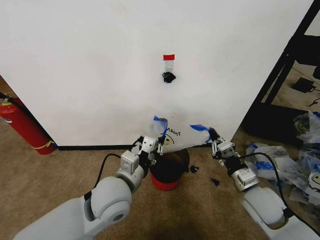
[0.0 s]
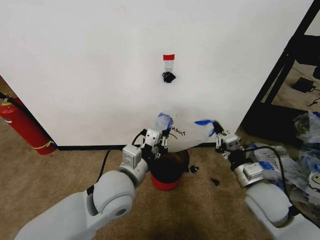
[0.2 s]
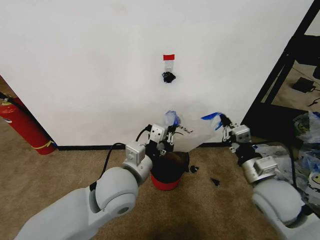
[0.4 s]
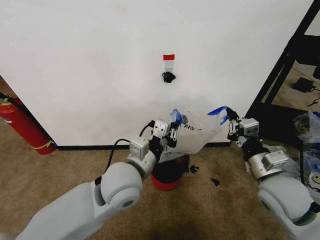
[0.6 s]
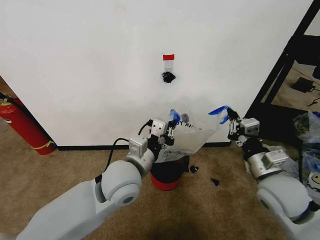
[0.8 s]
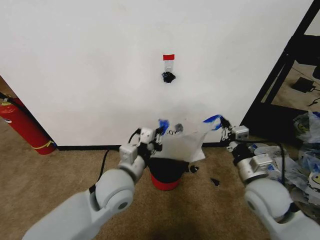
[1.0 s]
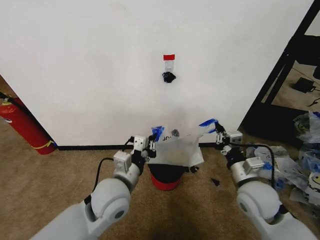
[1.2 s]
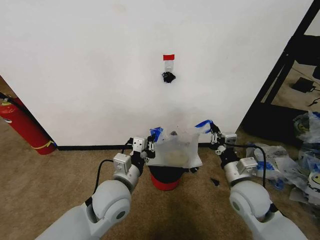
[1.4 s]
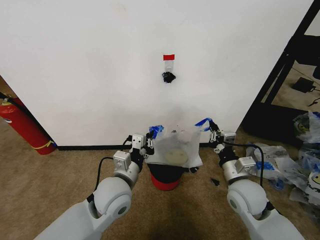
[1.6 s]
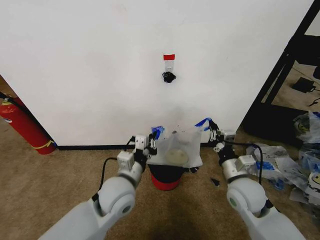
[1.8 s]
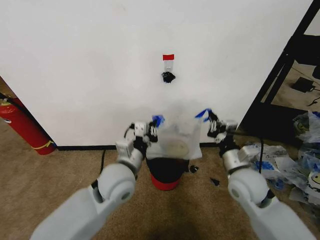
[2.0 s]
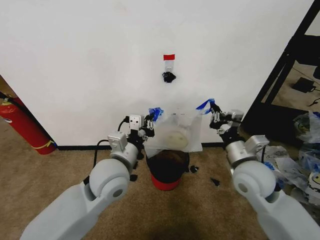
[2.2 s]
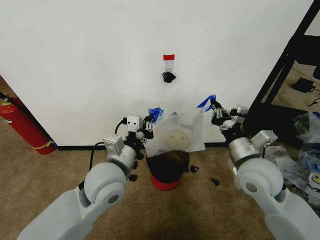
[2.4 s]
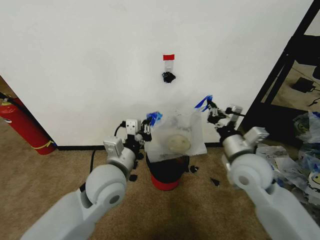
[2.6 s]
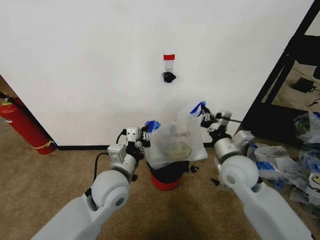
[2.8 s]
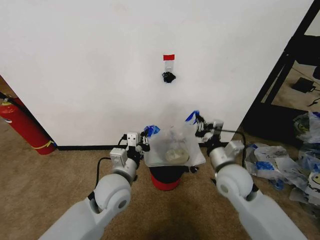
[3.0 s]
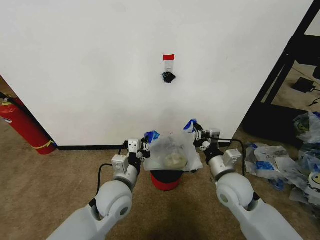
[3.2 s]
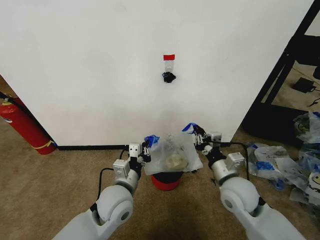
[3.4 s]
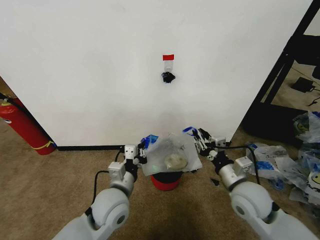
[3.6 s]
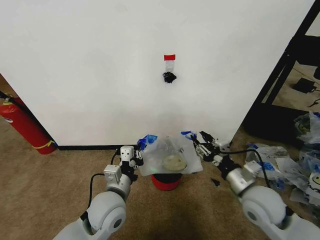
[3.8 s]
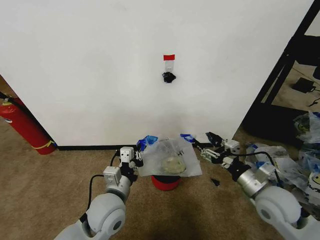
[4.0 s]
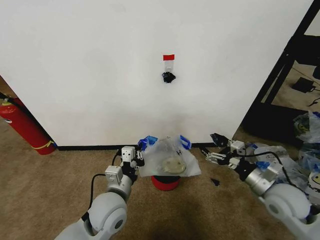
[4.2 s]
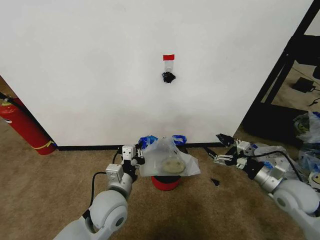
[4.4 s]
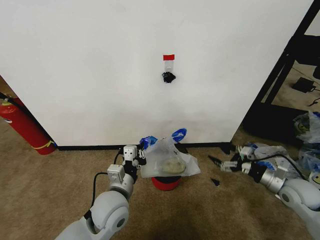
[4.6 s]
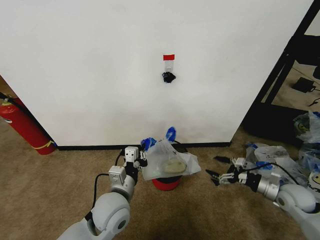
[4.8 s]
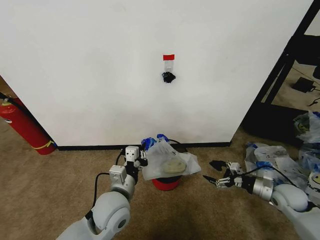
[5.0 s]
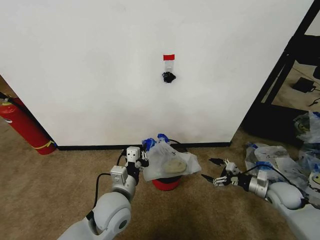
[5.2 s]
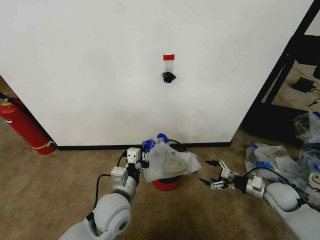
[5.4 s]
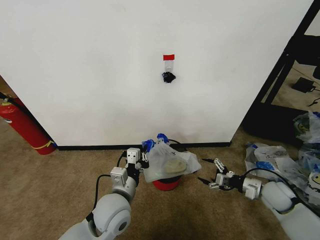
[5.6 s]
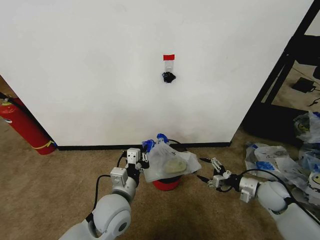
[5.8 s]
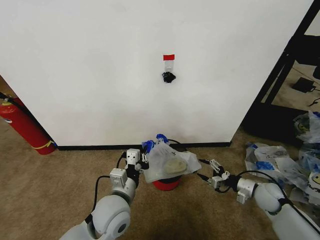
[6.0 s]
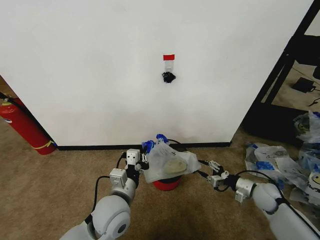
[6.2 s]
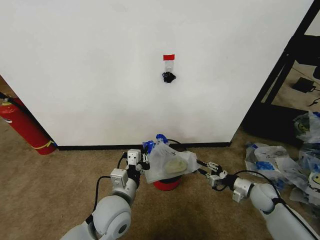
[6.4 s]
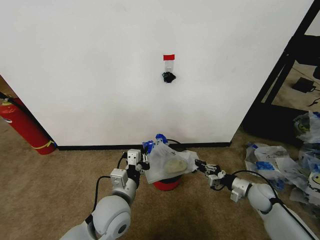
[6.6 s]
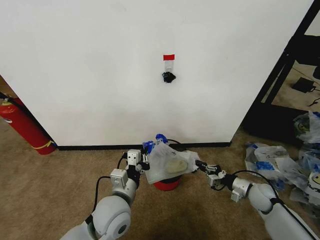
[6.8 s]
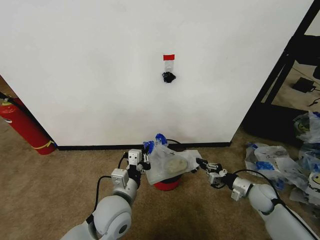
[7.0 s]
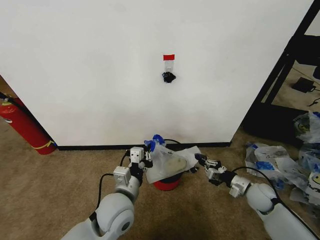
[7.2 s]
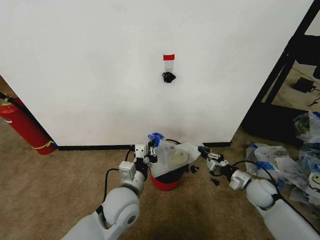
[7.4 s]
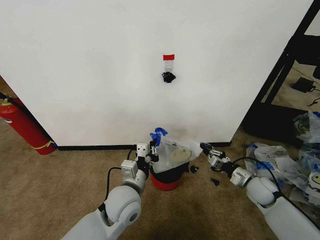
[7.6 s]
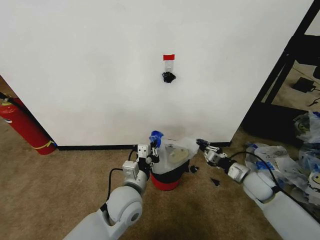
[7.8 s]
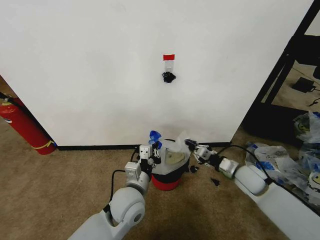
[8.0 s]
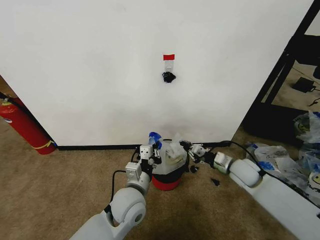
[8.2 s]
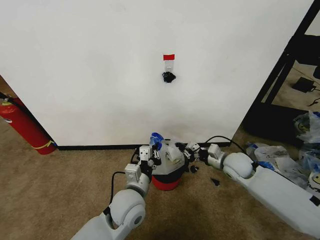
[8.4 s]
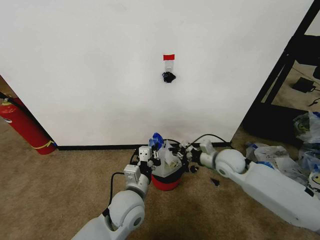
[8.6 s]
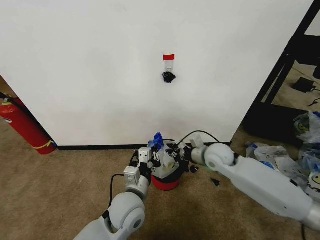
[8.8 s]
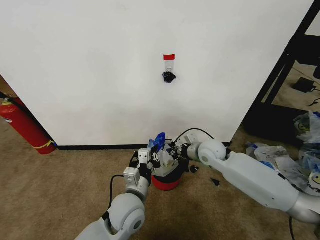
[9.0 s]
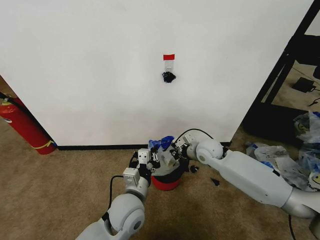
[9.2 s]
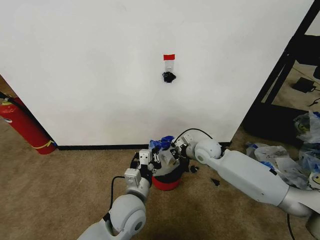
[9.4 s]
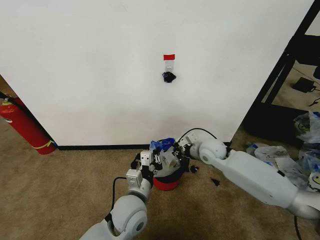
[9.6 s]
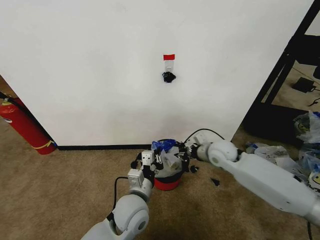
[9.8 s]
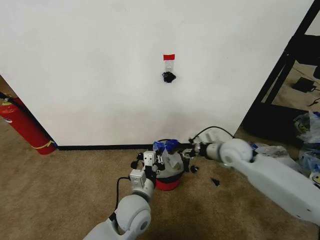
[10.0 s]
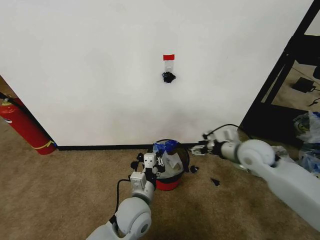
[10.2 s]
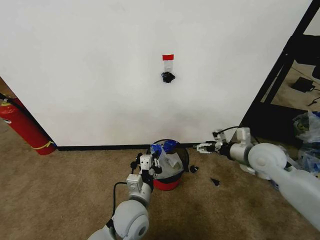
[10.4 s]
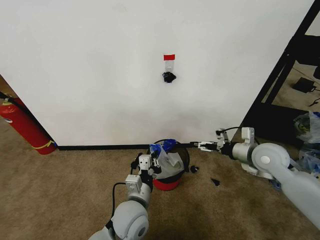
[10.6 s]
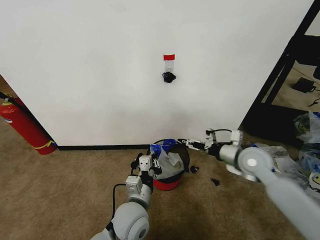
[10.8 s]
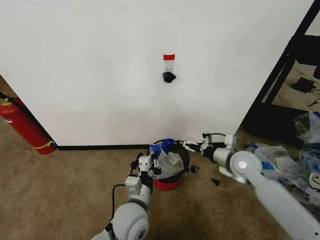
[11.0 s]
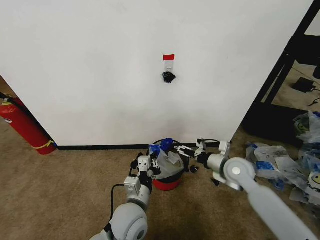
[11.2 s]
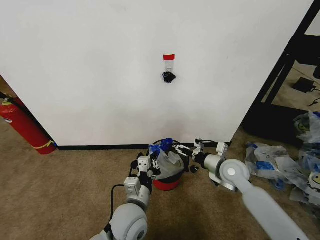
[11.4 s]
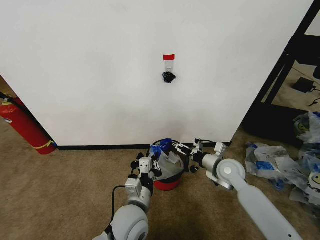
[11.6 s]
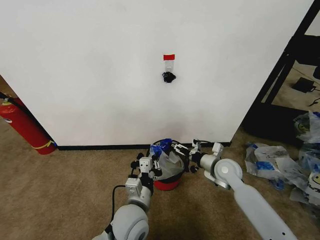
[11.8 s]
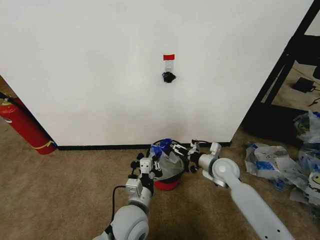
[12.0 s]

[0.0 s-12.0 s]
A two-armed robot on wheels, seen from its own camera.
Task of the whole recording: Pick up the garbage bag from the wall and place it over the trash bin.
0.0 to 1.6 s: The right gripper moves approximately 10 cm upward and comes back.
1.6 to 3.0 s: The right gripper goes upward and returns, approximately 10 cm each way.
3.0 to 4.4 s: The right gripper goes approximately 20 cm to the right, and opens its fingers.
4.4 to 6.0 s: The right gripper heads downward, covering approximately 10 cm.
6.0 to 7.6 s: The right gripper closes its fingers.
7.6 to 9.0 s: The right gripper shifts about 25 cm to the left, upward and forward.
9.0 to 10.4 s: The right gripper shifts some 15 cm to the right, backward and upward, and opens.
10.4 to 12.0 s: The right gripper is displaced downward and to the left by about 15 cm.

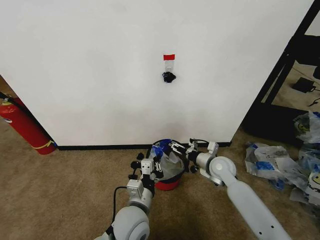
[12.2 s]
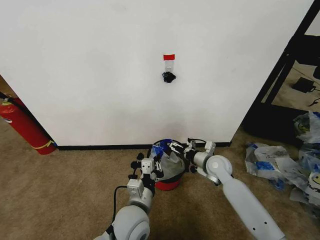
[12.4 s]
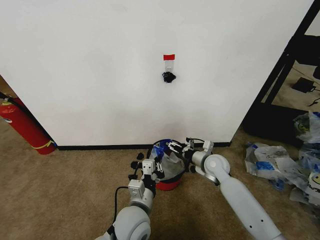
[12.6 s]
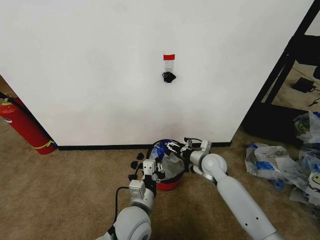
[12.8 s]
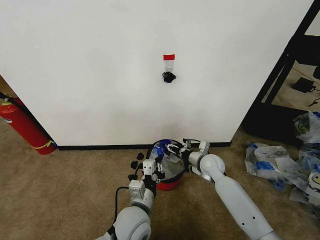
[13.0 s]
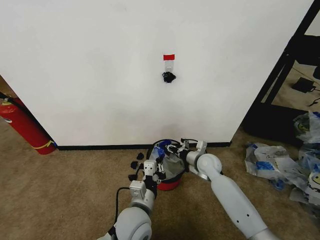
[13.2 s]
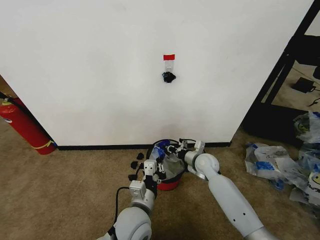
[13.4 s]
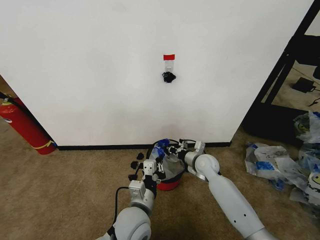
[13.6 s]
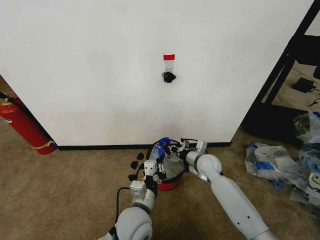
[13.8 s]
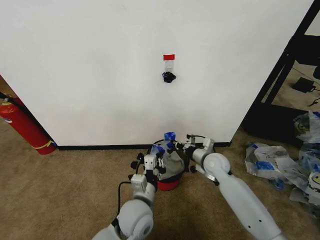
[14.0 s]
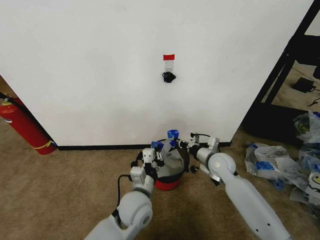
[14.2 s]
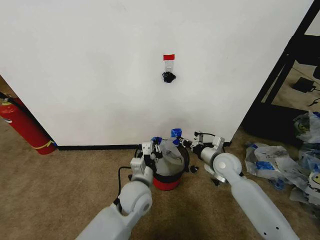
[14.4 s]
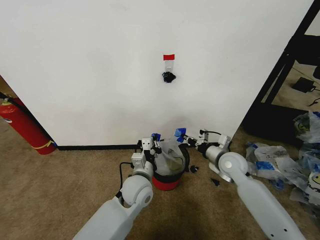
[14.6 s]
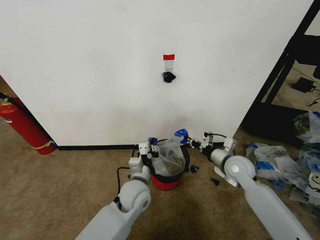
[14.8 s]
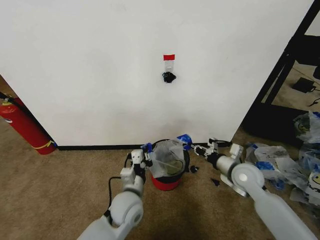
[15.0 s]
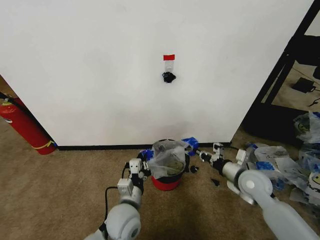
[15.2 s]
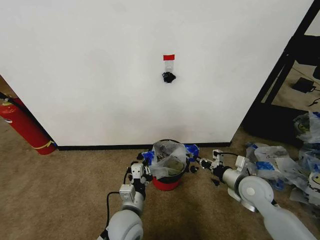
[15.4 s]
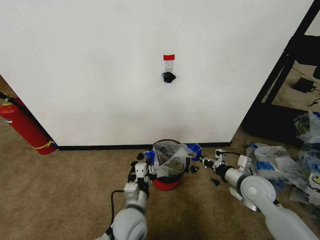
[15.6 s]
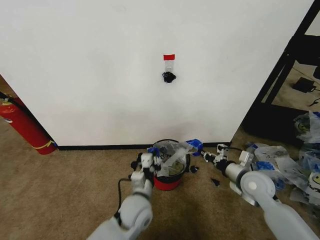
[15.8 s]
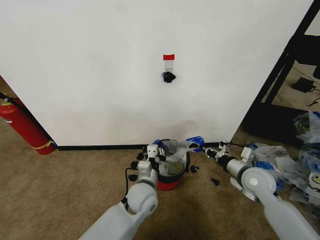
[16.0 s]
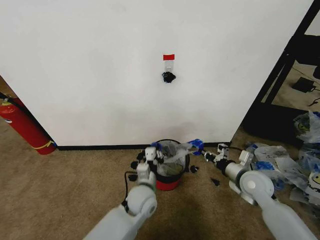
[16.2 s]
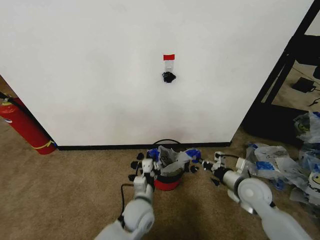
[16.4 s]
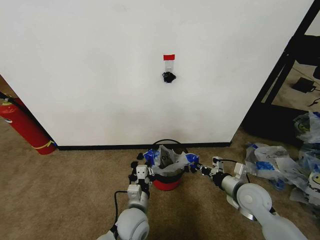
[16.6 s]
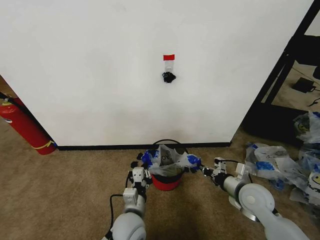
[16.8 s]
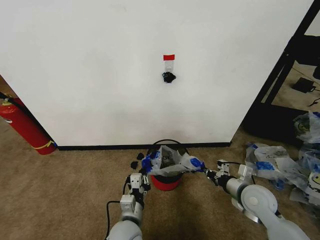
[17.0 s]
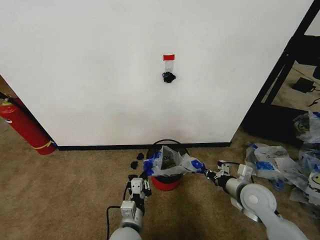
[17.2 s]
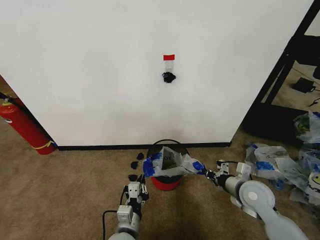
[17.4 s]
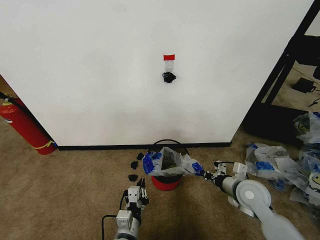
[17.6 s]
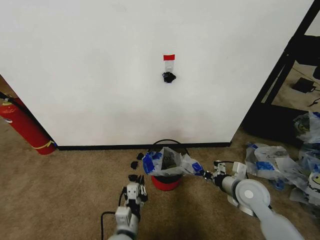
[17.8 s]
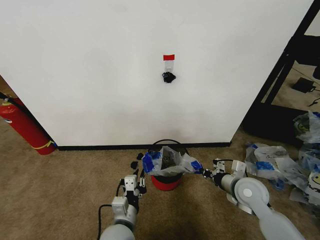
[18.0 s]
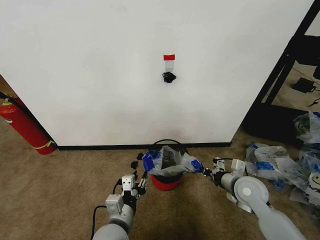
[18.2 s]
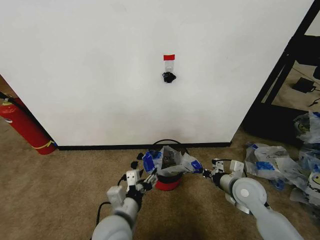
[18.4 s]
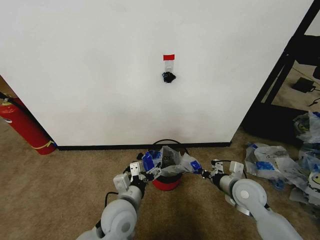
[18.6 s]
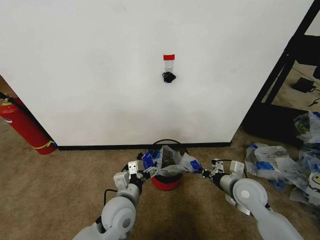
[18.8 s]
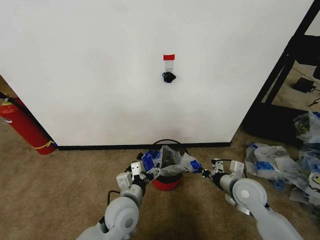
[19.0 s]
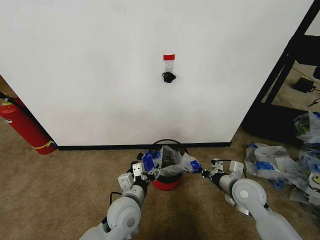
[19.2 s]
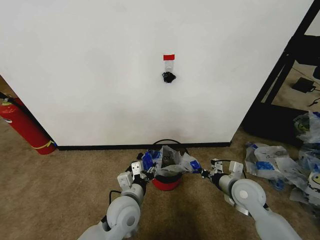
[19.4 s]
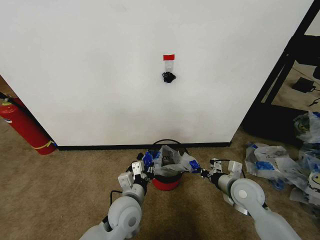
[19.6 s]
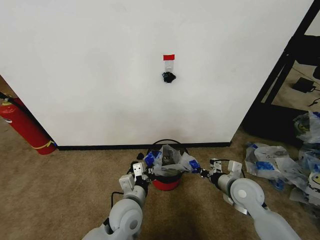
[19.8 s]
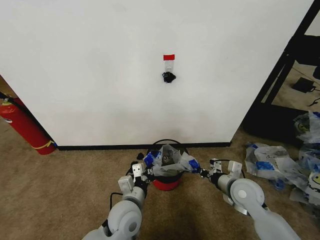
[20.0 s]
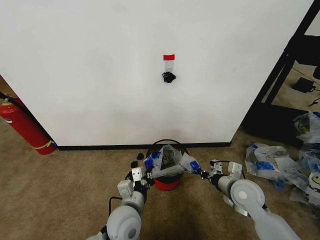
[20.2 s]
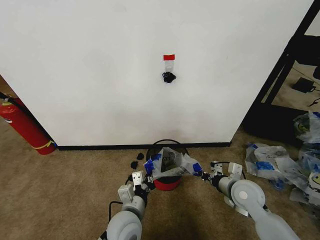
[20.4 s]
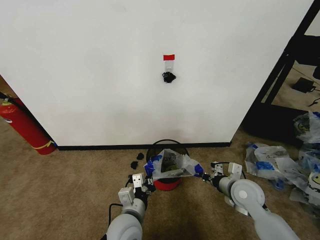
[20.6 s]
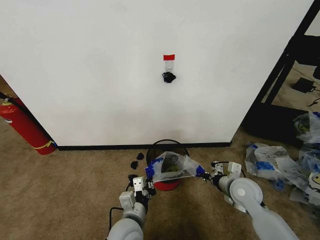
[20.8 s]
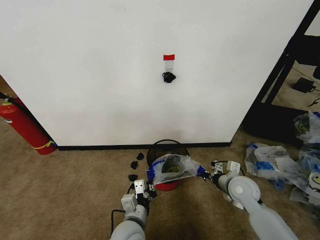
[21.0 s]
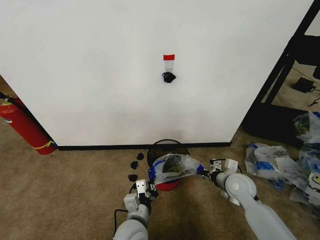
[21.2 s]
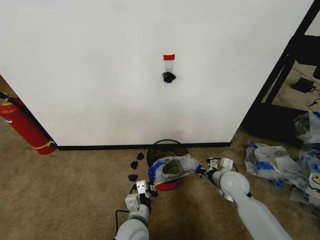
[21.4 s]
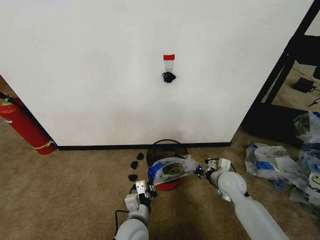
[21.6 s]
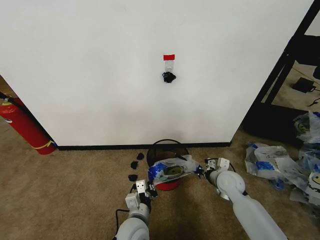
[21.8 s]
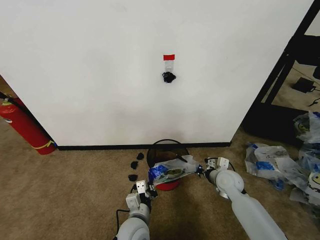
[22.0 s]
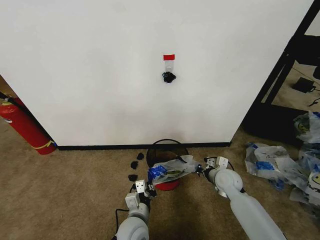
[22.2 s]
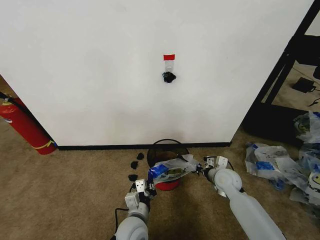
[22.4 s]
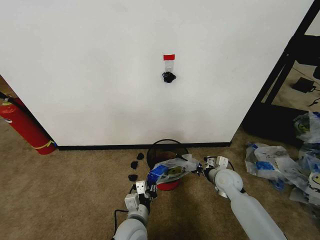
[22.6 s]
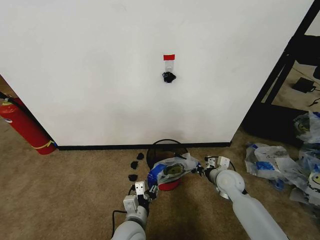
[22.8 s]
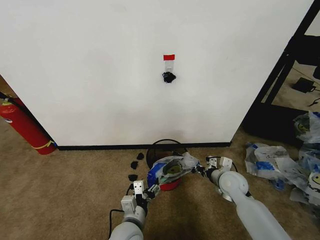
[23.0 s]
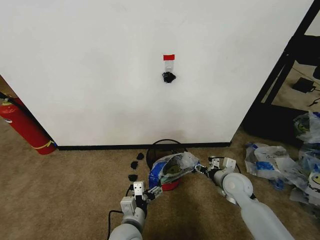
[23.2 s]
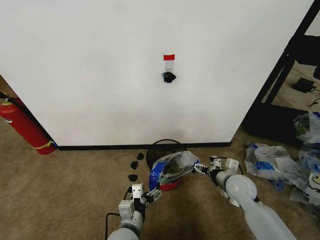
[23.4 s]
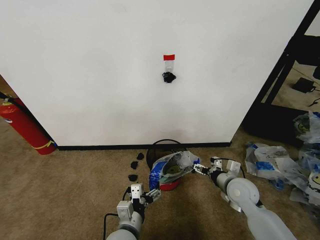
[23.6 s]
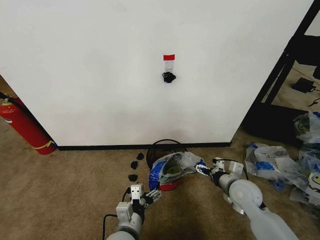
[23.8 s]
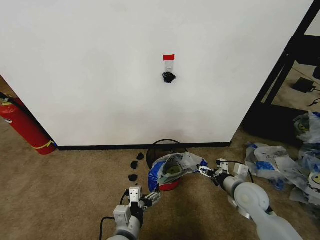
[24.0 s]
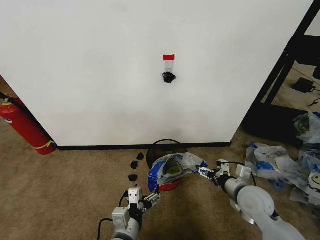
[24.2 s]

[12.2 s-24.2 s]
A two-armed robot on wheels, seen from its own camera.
Task of the whole recording: Pick up the garbage bag from the wall and place it over the trash bin.
12.2 to 13.8 s: The right gripper closes its fingers.
13.8 to 15.2 s: The right gripper heads to the right, backward and upward, covering some 15 cm, while the left gripper travels forward and back again, approximately 10 cm each way.
15.2 to 16.6 s: The left gripper goes forward and returns, roughly 5 cm each way.
16.6 to 18.2 s: The left gripper travels upward and backward by some 10 cm, and opens its fingers.
18.2 to 19.8 s: The left gripper moves forward, approximately 5 cm, and closes.
19.8 to 21.2 s: The left gripper ends up roughly 5 cm from where it was.
21.2 to 22.6 s: The left gripper opens up. The right gripper changes place by some 5 cm.
22.6 to 24.2 s: Both grippers move backward and upward, about 10 cm. The right gripper opens its fingers, while the left gripper opens.
